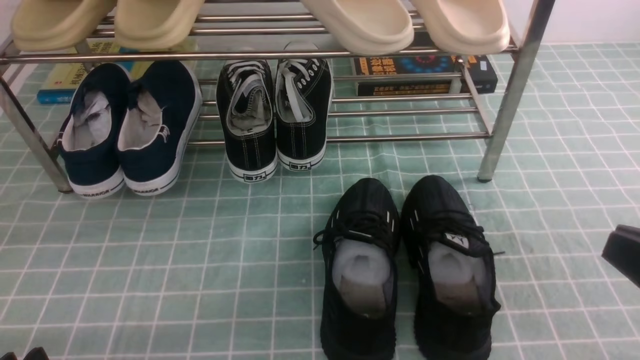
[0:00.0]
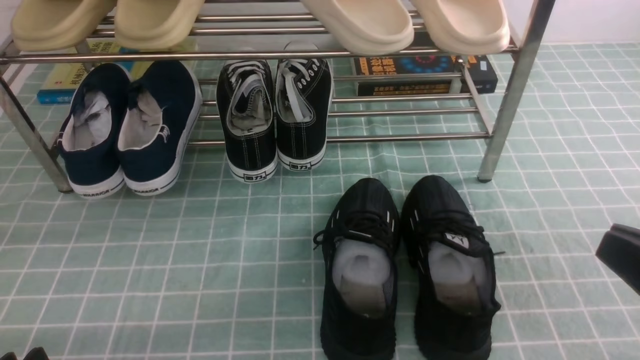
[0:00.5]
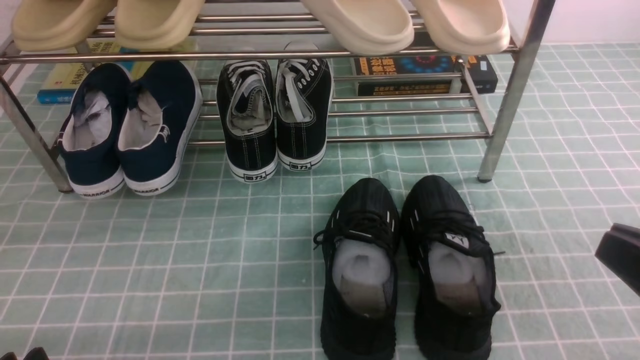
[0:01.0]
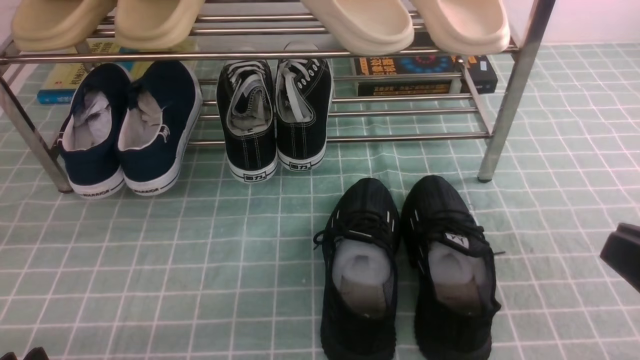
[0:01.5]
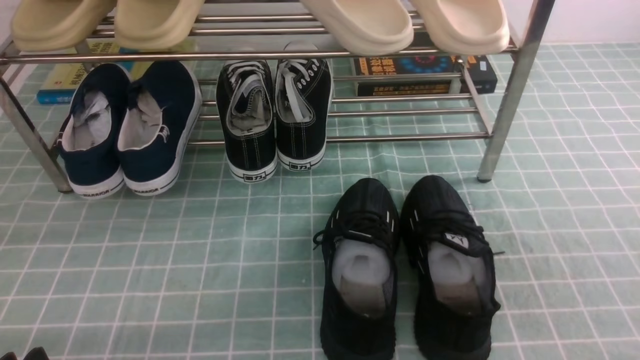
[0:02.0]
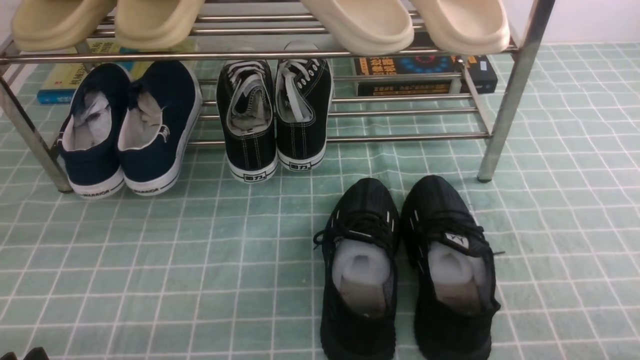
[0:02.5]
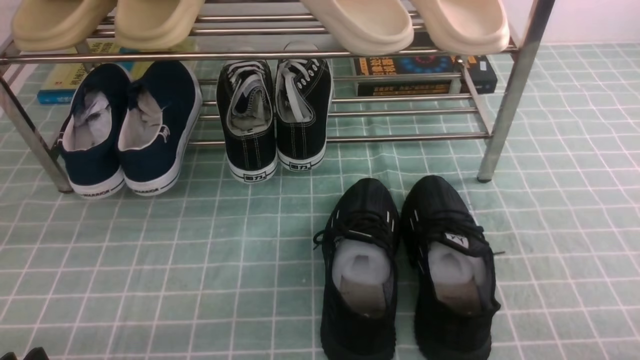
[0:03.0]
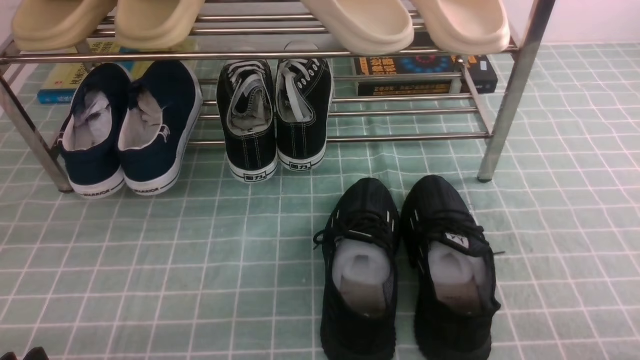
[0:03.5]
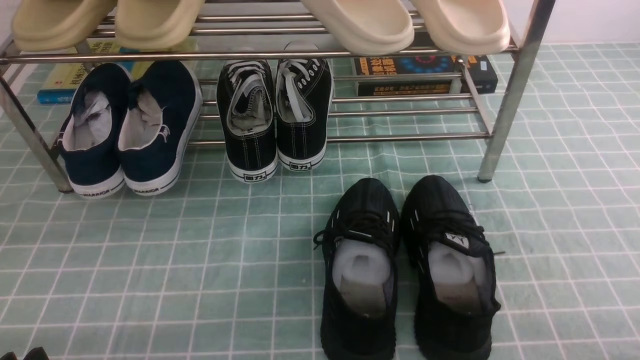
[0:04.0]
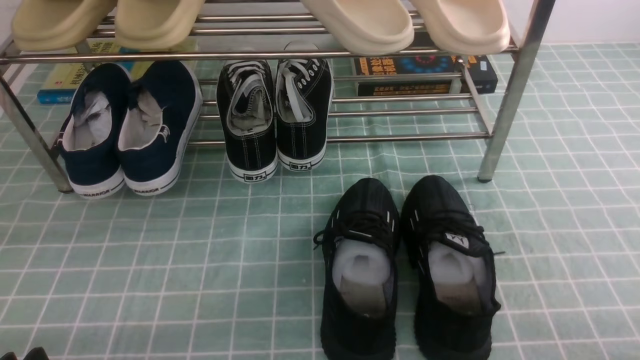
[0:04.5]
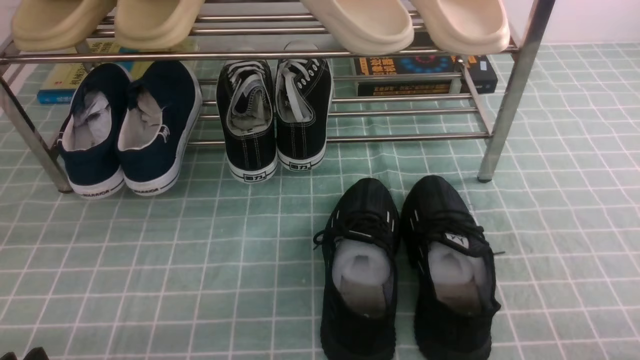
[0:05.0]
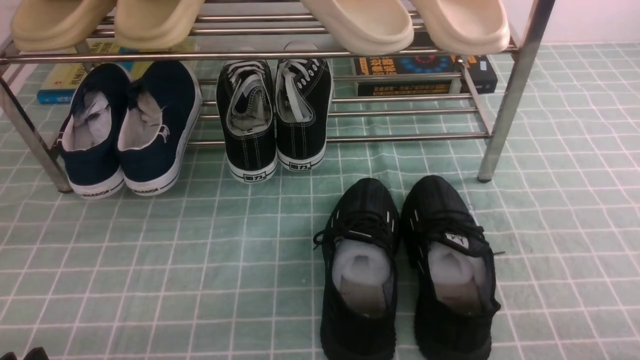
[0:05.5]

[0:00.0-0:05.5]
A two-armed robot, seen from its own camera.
0:03.5 to 0:05.5: Both grippers stay put.
